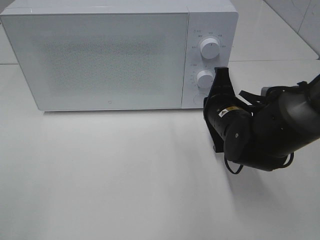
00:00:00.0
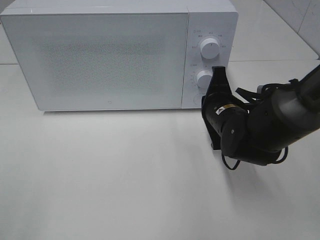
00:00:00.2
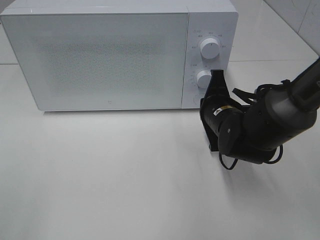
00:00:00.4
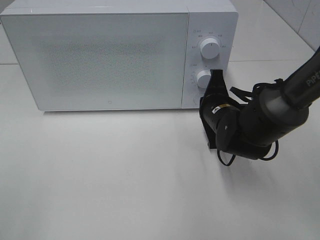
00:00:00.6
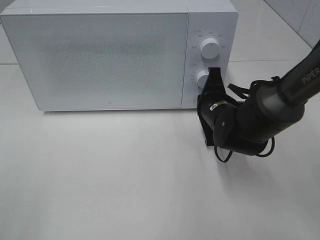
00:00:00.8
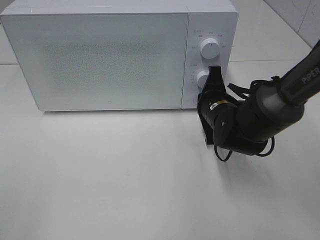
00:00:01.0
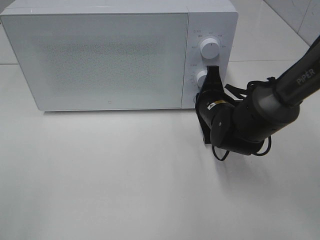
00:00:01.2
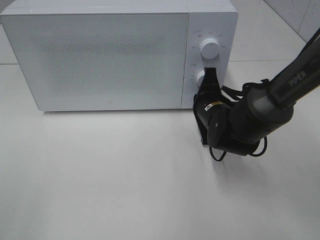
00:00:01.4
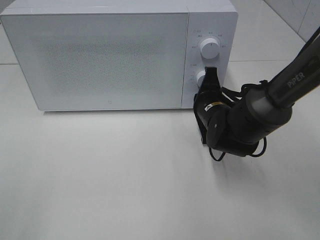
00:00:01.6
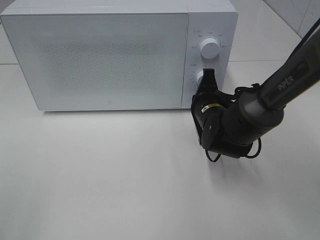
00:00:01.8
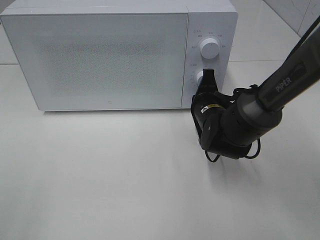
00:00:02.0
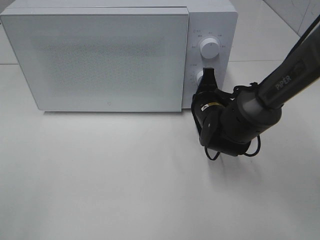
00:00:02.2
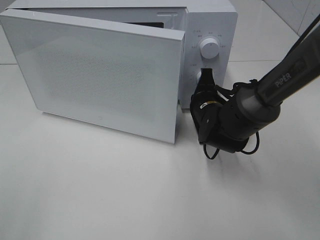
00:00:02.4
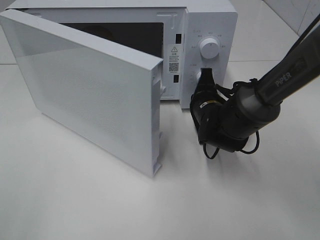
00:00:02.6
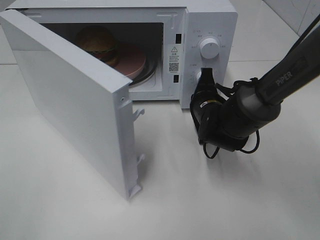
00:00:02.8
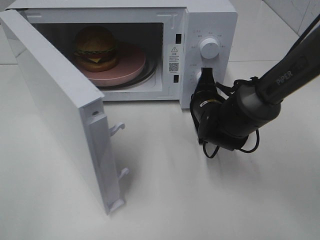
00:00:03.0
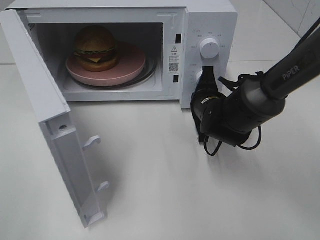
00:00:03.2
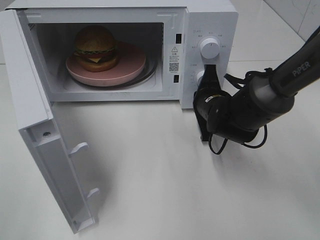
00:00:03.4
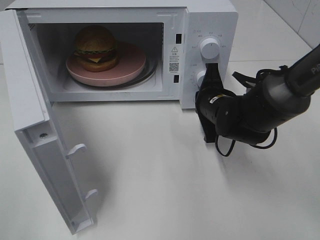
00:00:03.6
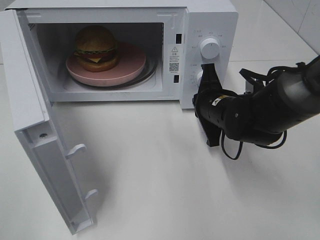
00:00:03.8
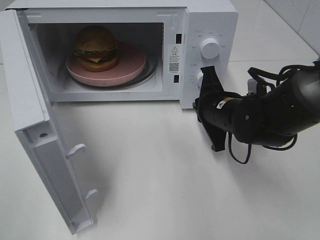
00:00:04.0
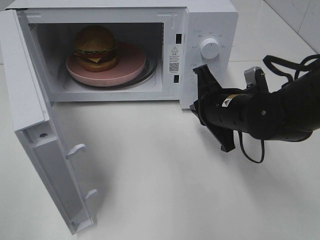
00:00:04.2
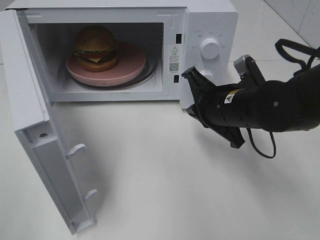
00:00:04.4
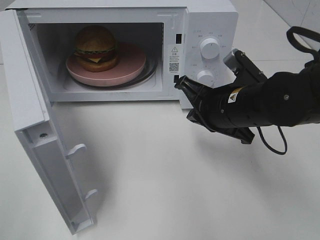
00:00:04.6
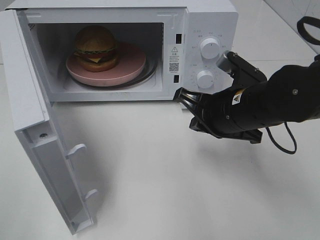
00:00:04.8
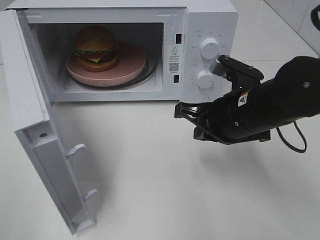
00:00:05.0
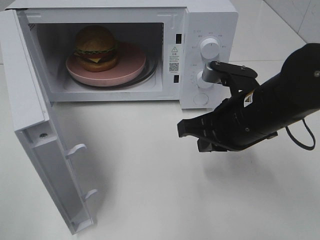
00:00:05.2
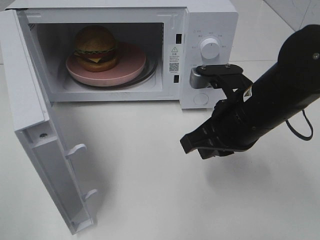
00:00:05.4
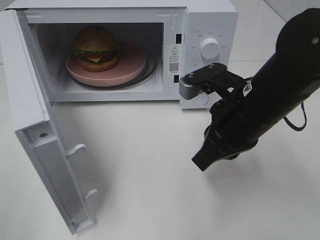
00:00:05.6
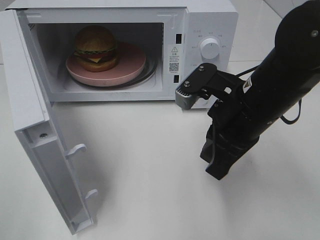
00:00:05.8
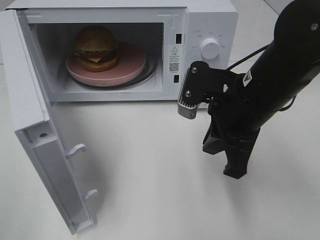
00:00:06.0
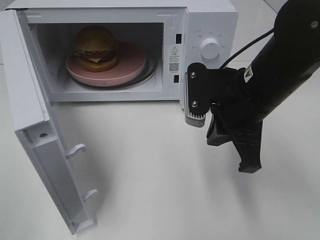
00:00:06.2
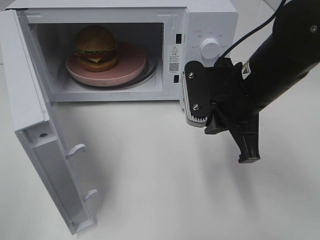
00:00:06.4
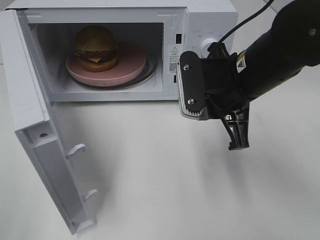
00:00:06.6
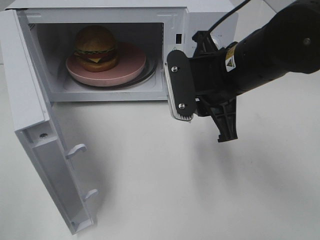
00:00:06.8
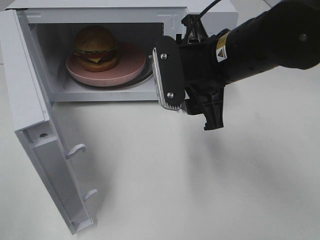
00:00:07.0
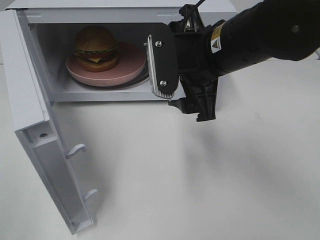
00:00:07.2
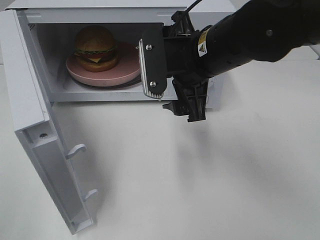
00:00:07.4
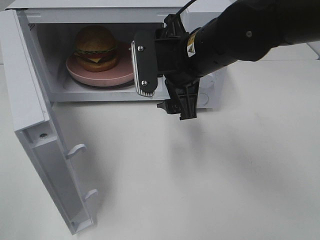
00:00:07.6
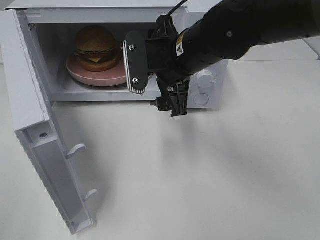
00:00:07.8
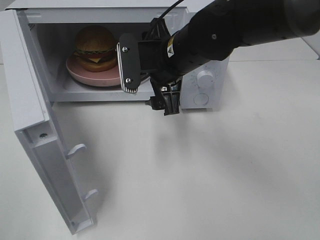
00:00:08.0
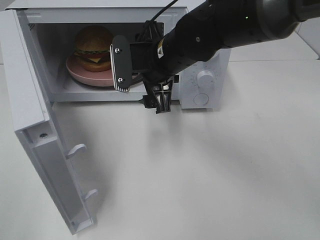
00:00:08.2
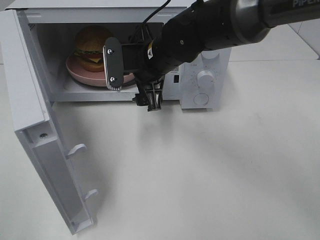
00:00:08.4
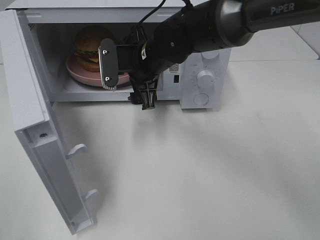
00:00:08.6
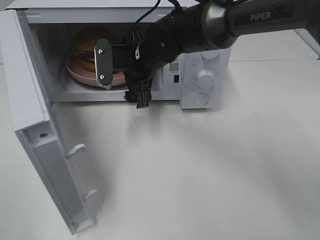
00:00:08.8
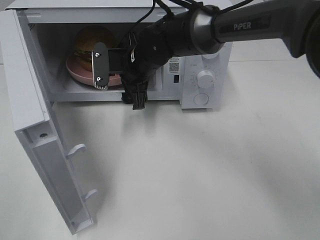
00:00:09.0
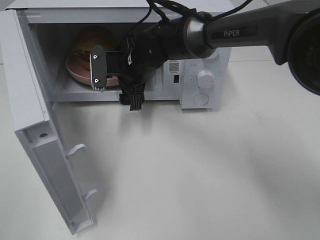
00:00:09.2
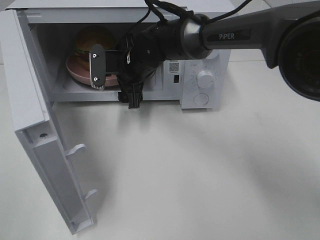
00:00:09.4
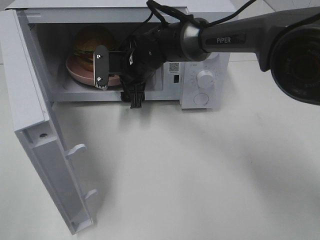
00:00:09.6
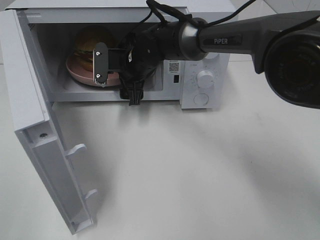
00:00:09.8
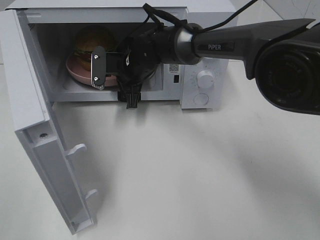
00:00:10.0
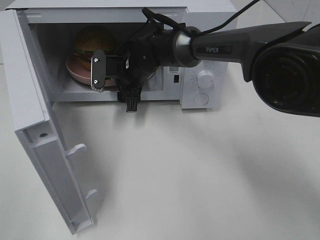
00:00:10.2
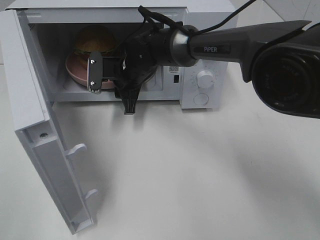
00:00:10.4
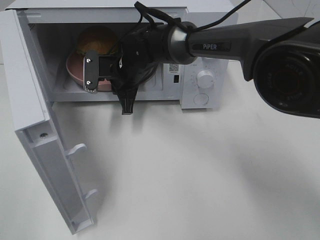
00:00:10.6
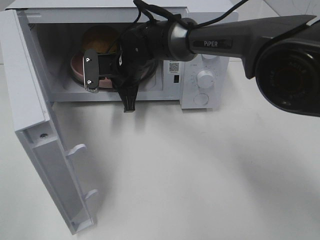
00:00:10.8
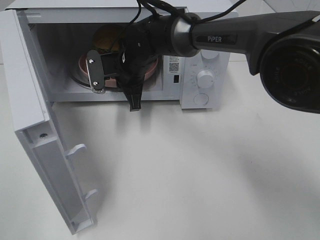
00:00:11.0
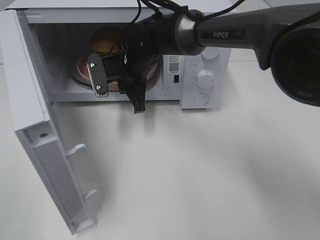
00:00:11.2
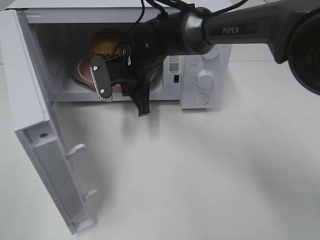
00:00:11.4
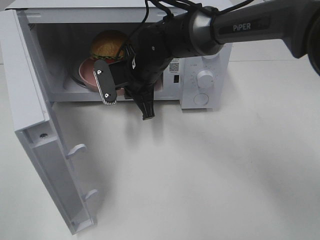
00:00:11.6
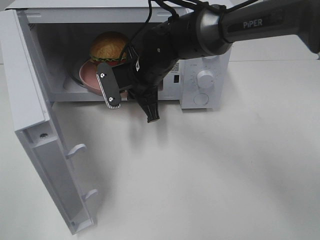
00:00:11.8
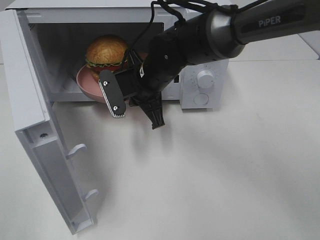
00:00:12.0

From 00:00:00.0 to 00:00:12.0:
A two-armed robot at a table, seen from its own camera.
Task of the whole recording: Heat the burger.
Step, from 00:00:00.0 to 00:00:03.8: Right hand: press the switch.
Step, from 00:00:04.0 to 00:00:11.0: Right hand: grab the plate with the hamburger.
From 00:00:00.0 to 00:00:01.6: The right gripper changes place by about 5 cm.
From 00:00:03.0 to 00:00:04.4: The right gripper goes approximately 10 cm backward and upward.
From 00:00:04.4 to 00:00:06.0: The right gripper is displaced upward by approximately 5 cm.
From 00:00:06.0 to 00:00:07.6: The right gripper travels to the left and forward by some 10 cm, and opens up.
From 00:00:07.6 to 00:00:09.0: The right gripper is displaced forward, to the left and downward by some 15 cm.
From 00:00:09.0 to 00:00:10.4: The right gripper closes up.
From 00:00:10.4 to 00:00:12.0: The right gripper travels backward by about 5 cm, and closes.

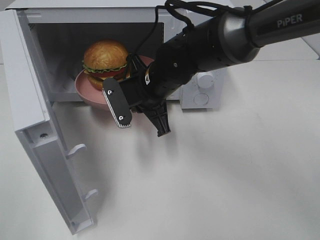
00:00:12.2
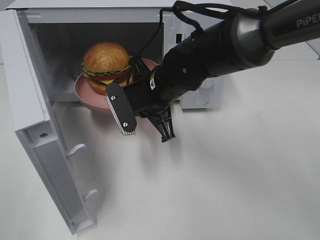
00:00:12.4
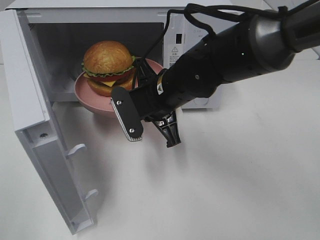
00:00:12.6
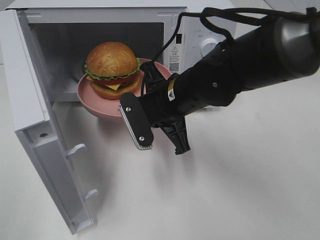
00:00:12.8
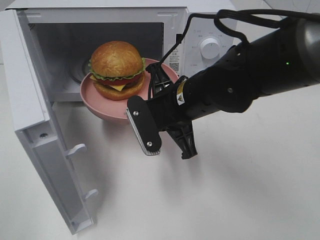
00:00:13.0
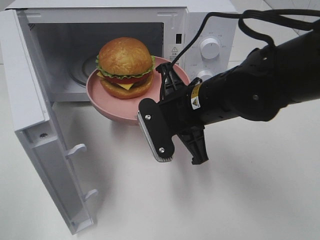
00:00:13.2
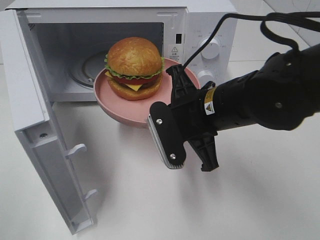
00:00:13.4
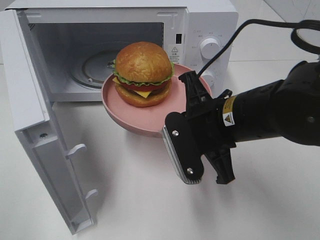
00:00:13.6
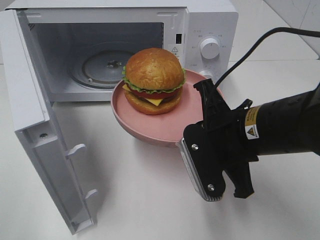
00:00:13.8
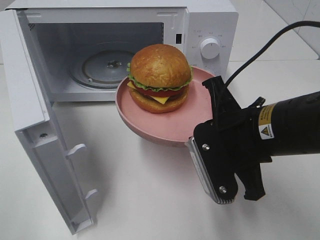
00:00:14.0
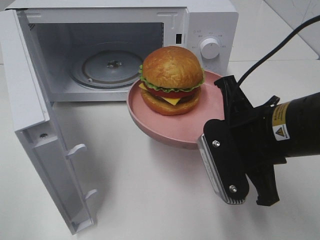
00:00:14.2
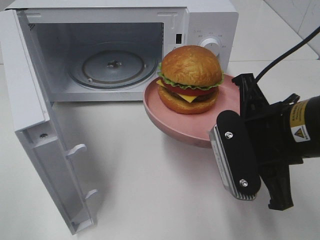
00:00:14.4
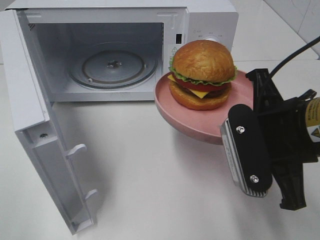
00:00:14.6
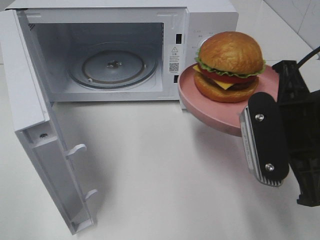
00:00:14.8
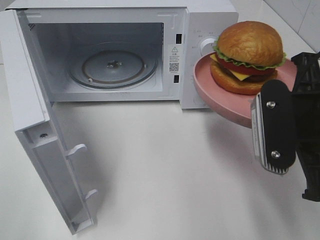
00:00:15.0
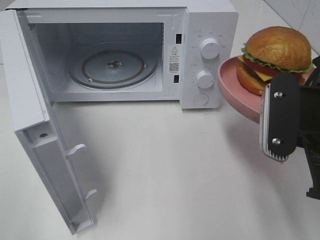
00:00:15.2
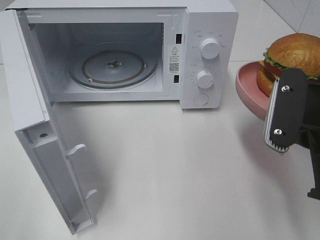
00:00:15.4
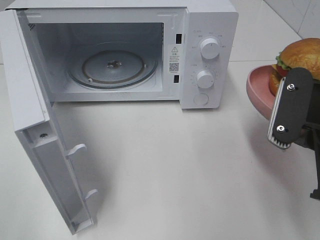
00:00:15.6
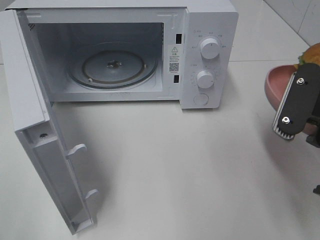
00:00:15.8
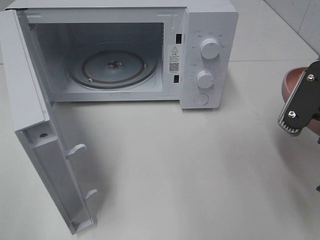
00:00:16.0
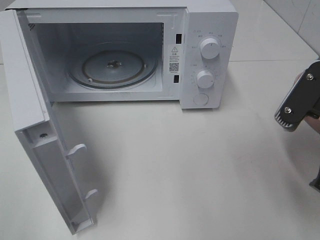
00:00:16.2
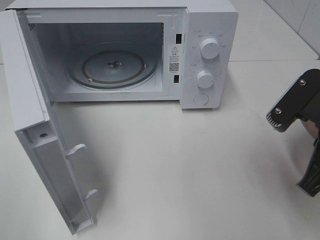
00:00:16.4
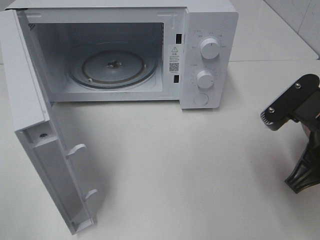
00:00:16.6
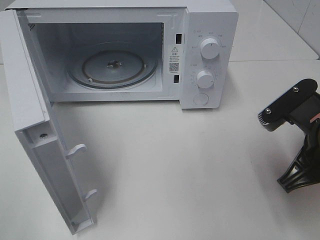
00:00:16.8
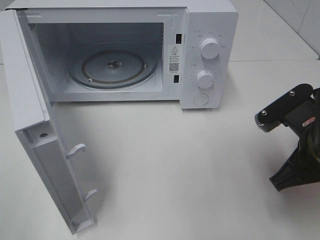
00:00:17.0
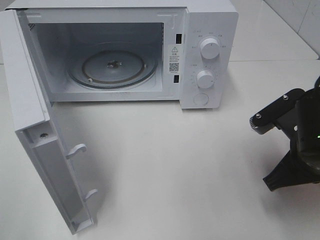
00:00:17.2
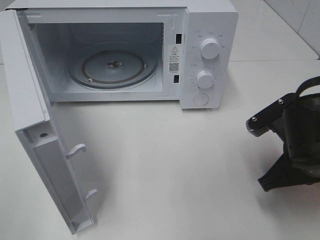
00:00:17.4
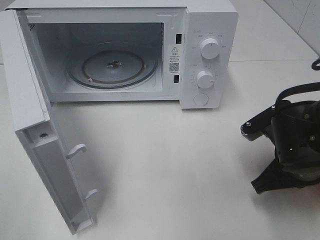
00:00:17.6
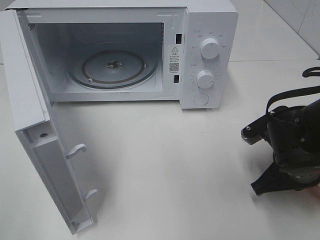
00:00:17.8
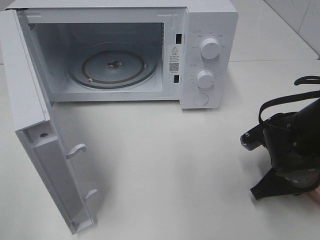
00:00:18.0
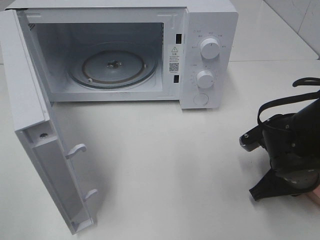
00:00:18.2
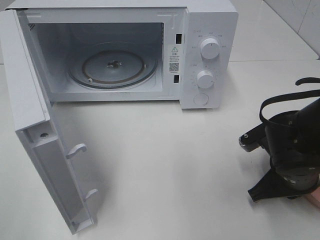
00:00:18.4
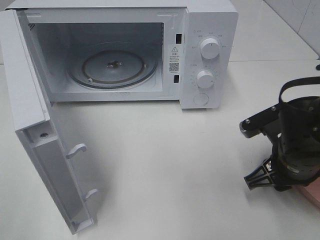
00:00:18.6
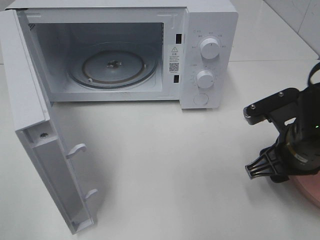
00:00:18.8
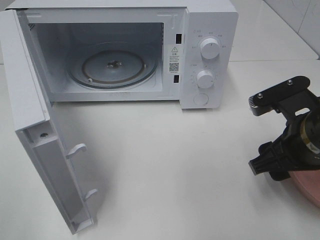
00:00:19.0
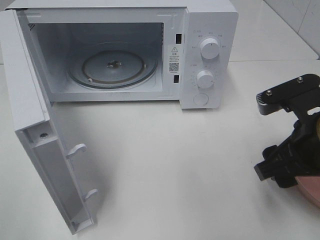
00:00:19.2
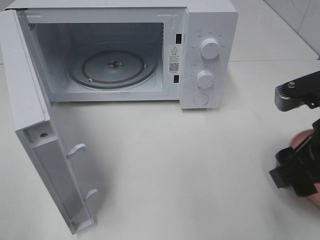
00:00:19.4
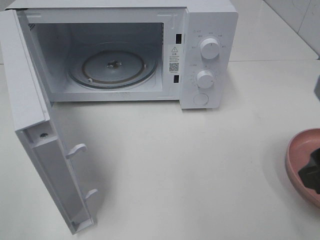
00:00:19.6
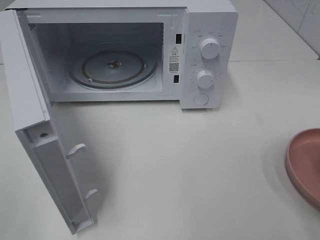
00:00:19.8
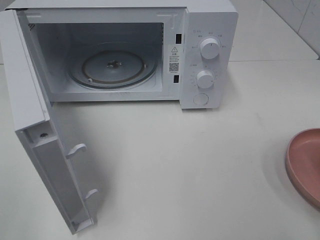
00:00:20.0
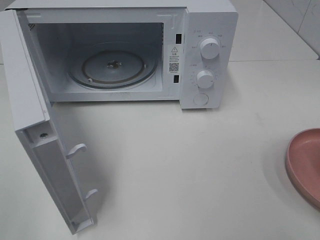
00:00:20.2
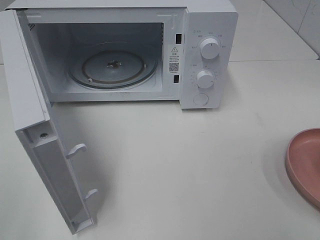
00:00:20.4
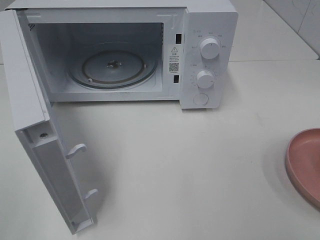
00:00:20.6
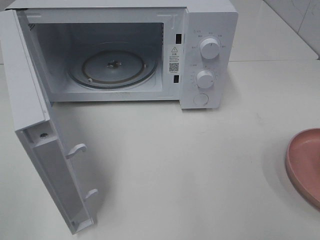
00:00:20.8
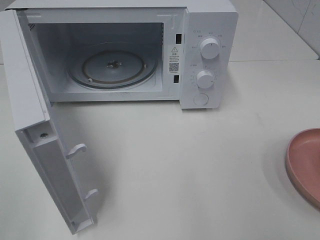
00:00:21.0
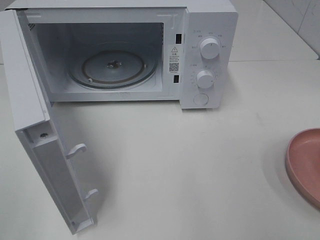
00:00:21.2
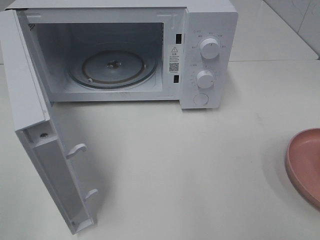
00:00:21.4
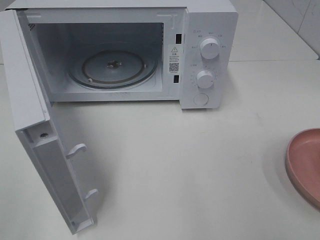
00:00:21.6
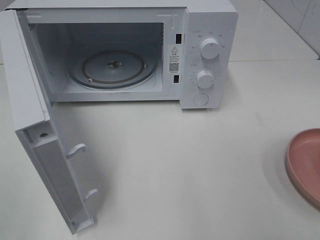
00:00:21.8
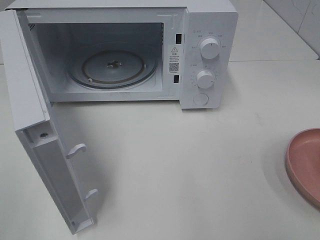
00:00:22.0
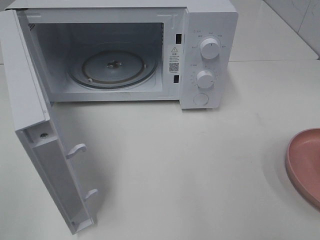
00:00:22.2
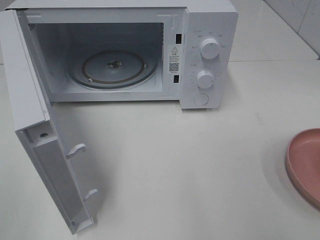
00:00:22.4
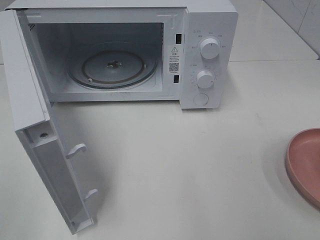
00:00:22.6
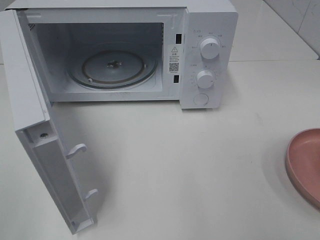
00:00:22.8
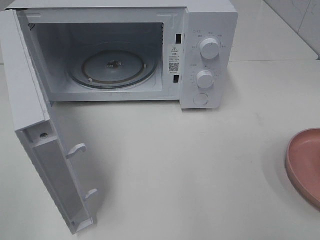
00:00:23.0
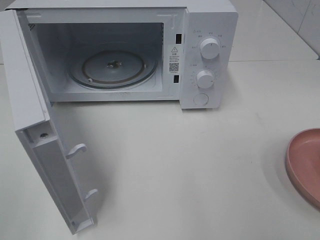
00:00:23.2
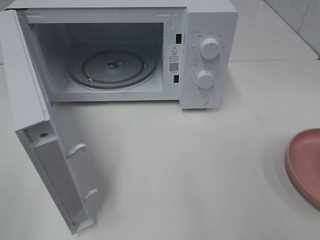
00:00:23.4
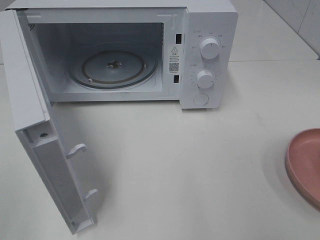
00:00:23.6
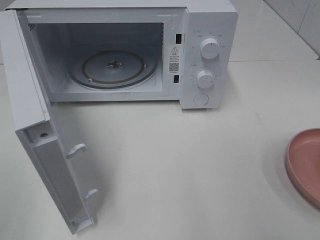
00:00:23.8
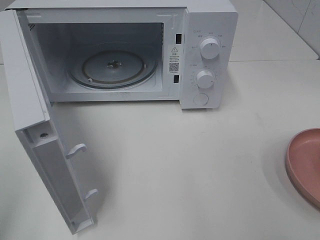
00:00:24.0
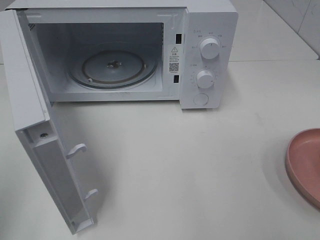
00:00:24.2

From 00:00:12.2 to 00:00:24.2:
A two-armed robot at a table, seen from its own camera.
Task of the whole recording: Heat the burger.
Step, from 00:00:12.2 to 00:00:18.6: Right hand: place the plate on the table.
From 00:00:12.2 to 00:00:13.8: The right gripper moves backward and to the right, about 20 cm.
From 00:00:13.8 to 00:00:15.2: The right gripper moves to the right and upward, roughly 10 cm.
From 00:00:15.2 to 00:00:16.6: The right gripper ends up some 5 cm from where it was.
From 00:00:16.6 to 00:00:18.2: The right gripper goes roughly 10 cm downward.
From 00:00:18.2 to 00:00:19.8: The right gripper moves upward and backward, approximately 20 cm, and opens.
From 00:00:21.2 to 00:00:22.6: The two grippers keep their place.
